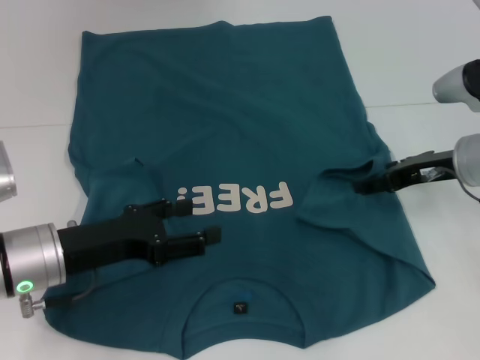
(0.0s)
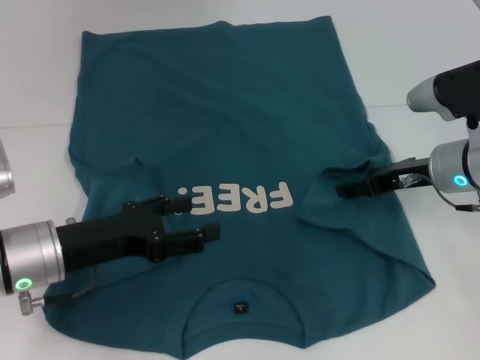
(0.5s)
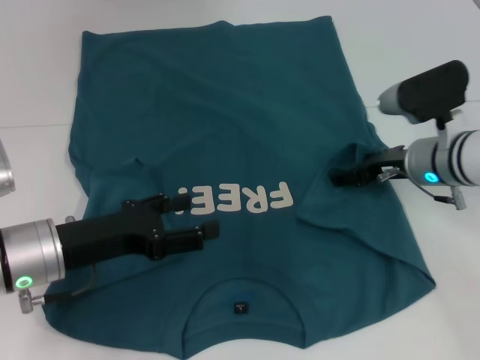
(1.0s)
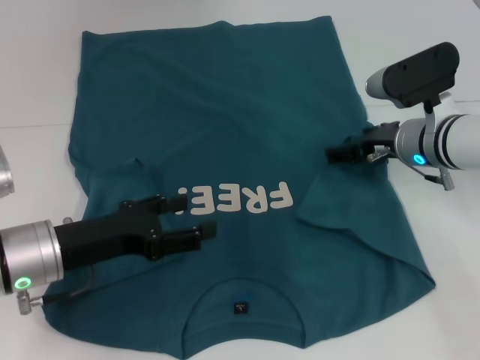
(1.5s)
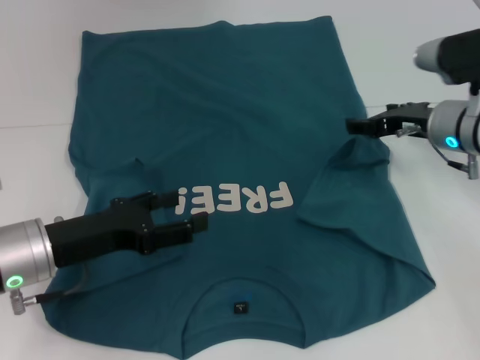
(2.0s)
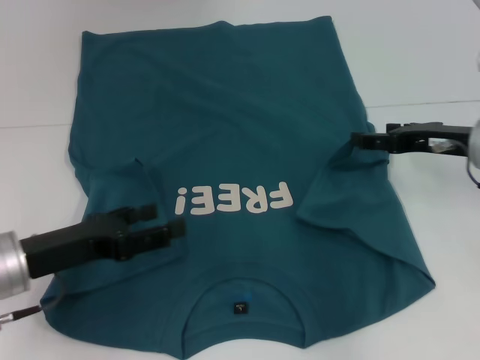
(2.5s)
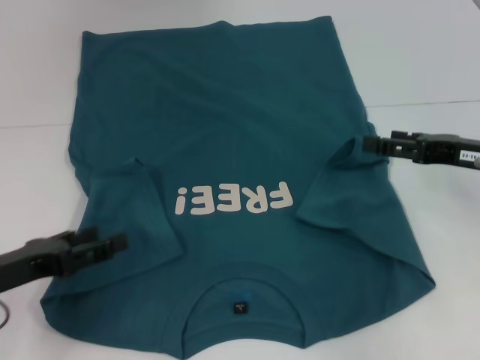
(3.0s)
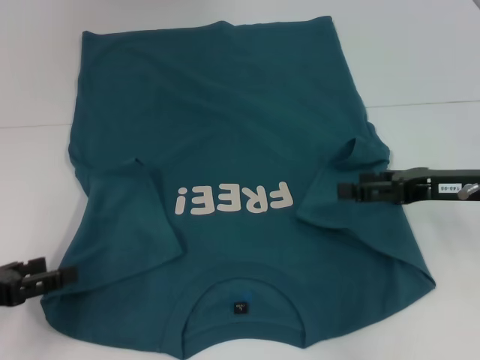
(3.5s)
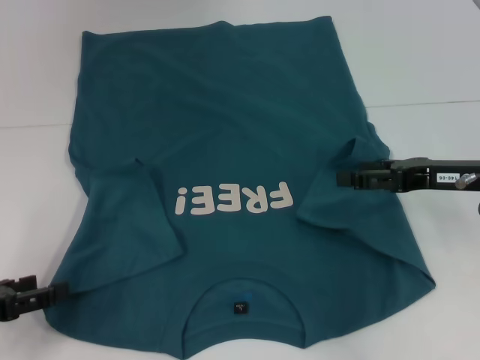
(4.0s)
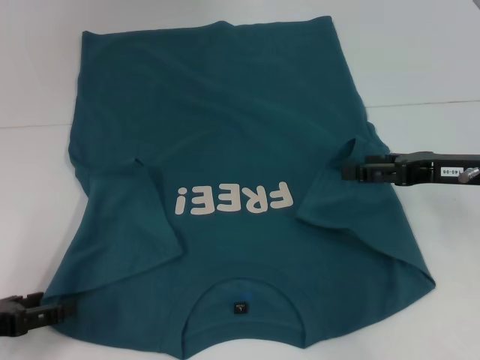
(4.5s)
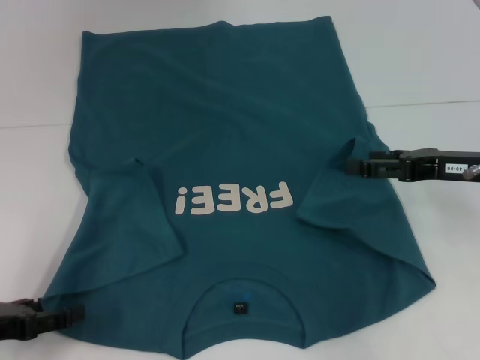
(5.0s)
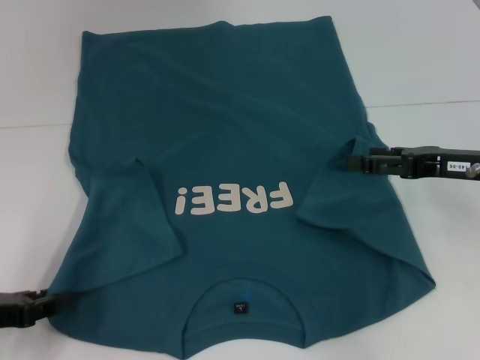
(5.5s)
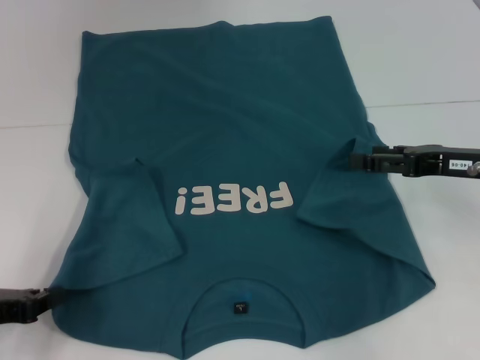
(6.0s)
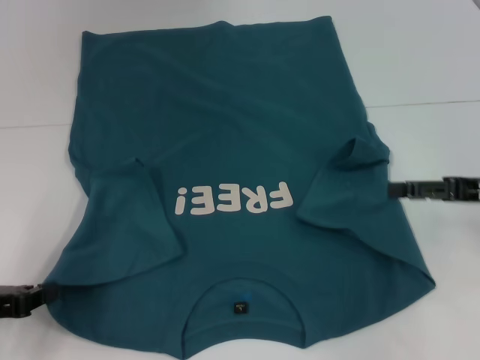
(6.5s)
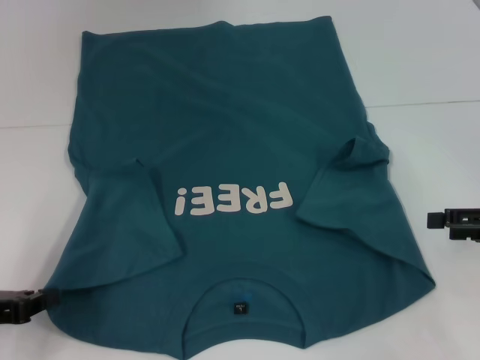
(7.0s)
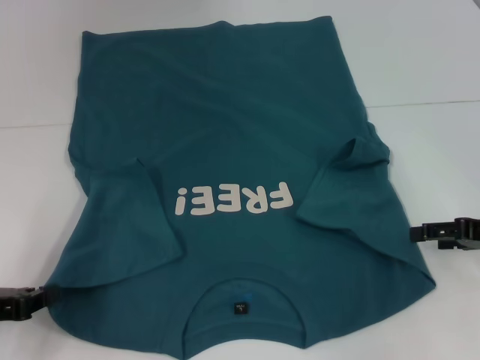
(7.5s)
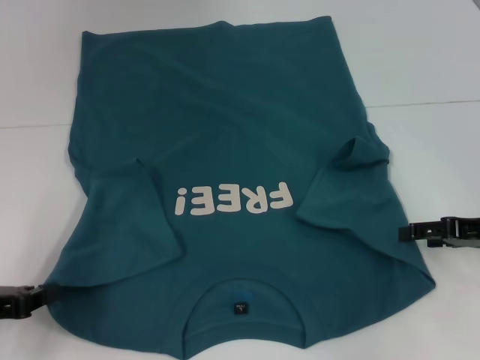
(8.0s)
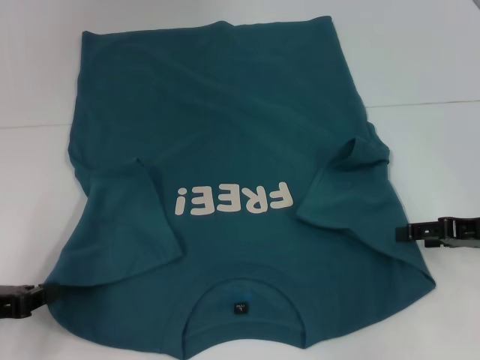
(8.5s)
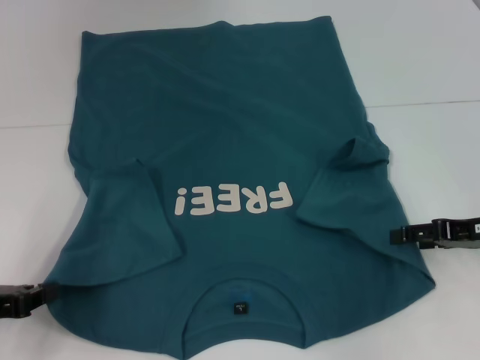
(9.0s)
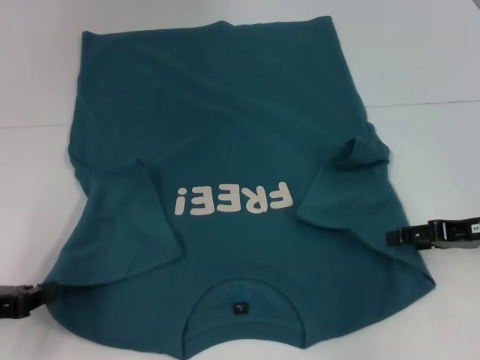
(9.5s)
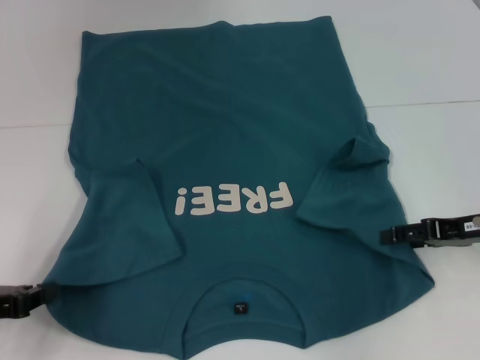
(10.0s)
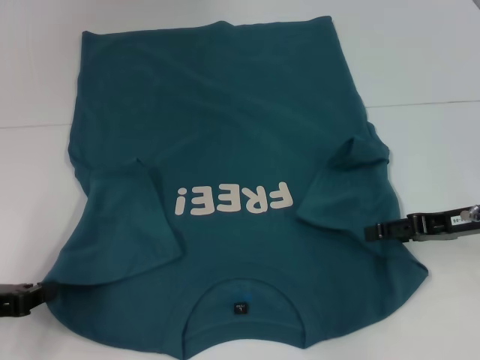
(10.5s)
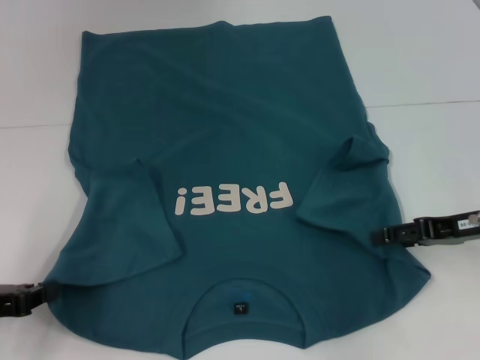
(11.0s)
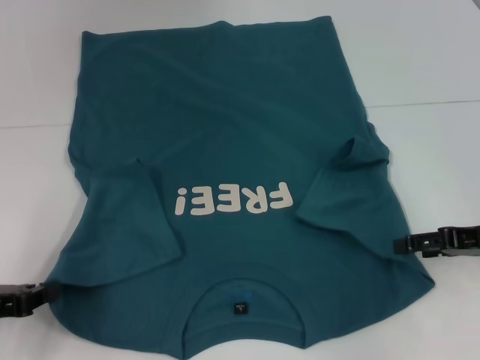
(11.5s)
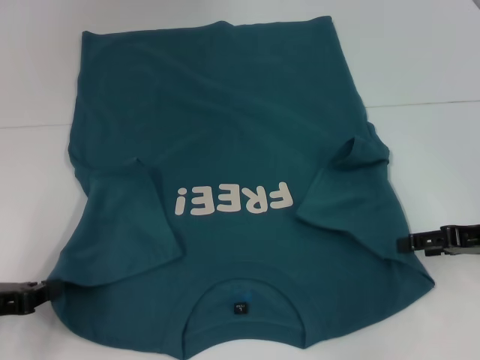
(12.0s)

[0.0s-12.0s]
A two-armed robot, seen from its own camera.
Step, 0.0s to 2.5s: Fold the bottom right sleeve to the right.
Step, 3.0s to 7.0s: Grab the bottom left corner with your left hand.
2.0s to 4.0s: The right gripper goes roughly 5 cm backward. Meanwhile the left gripper travels to the left and backward by roughly 15 cm.
4.0s to 6.0s: The left gripper closes up.
6.0s to 8.0s: The right gripper ends up about 5 cm from where it was.
8.0s to 12.0s: There are only small adjustments of the grippers.

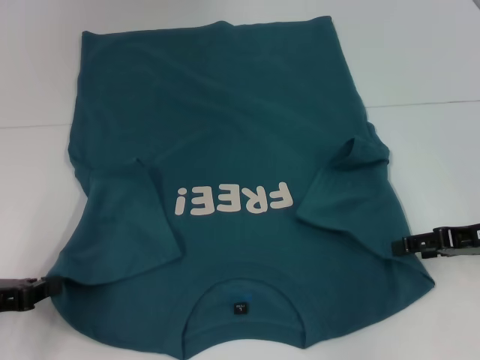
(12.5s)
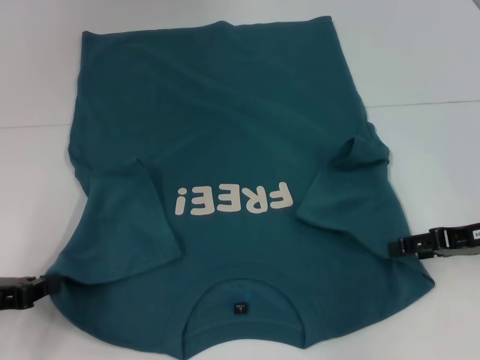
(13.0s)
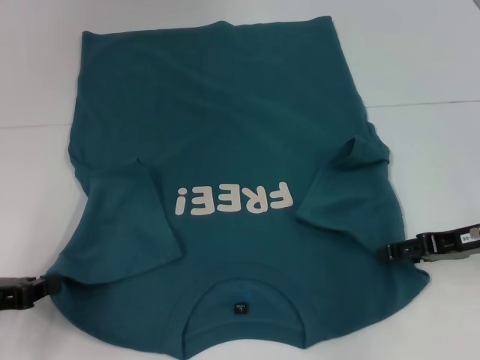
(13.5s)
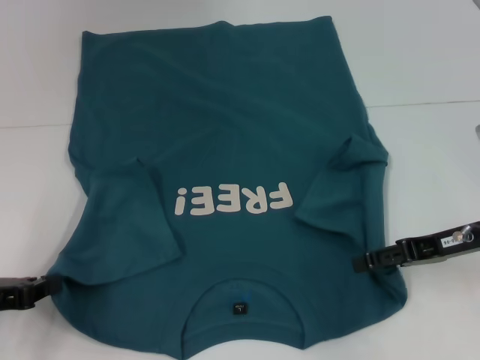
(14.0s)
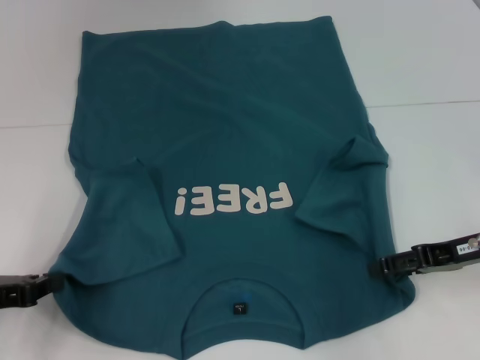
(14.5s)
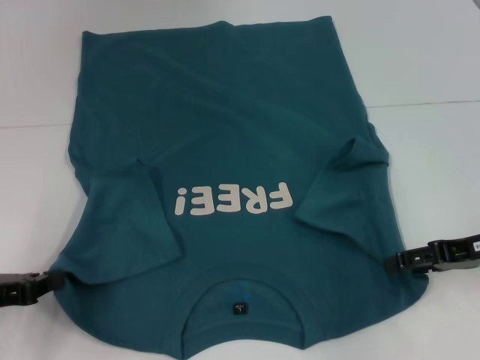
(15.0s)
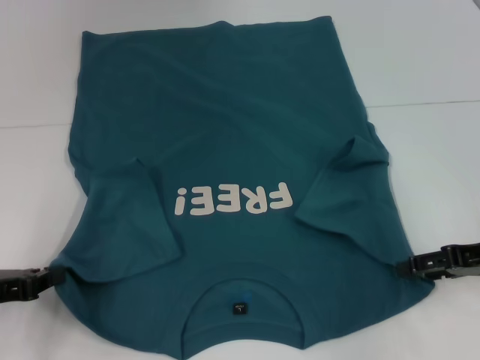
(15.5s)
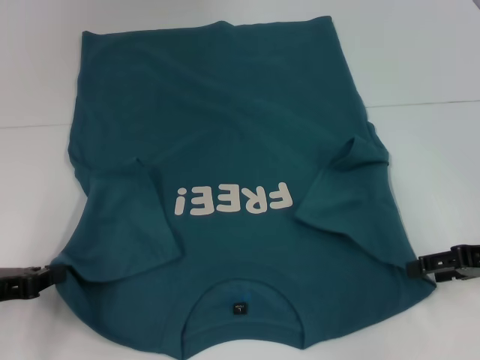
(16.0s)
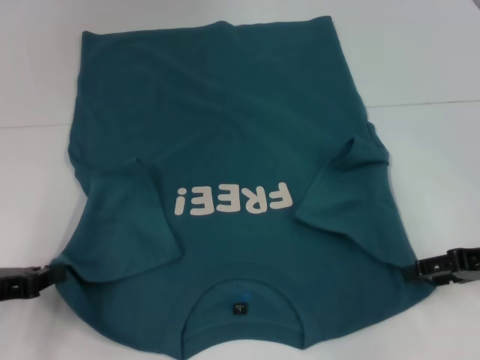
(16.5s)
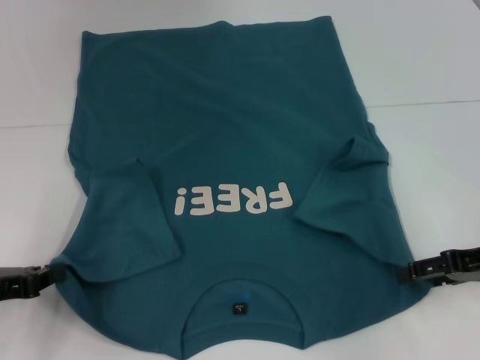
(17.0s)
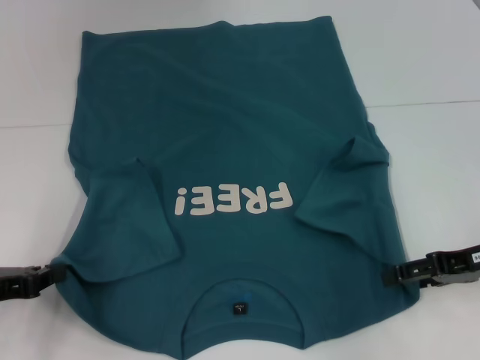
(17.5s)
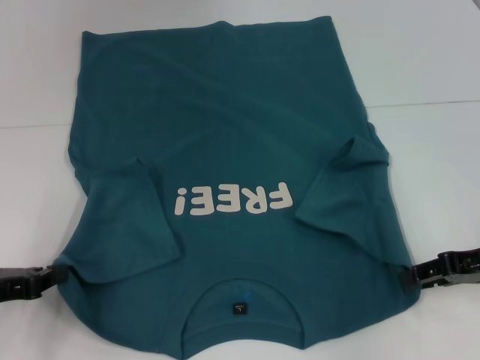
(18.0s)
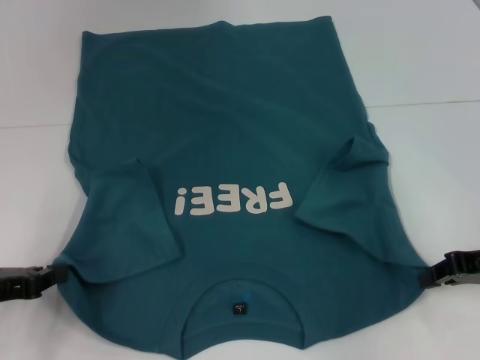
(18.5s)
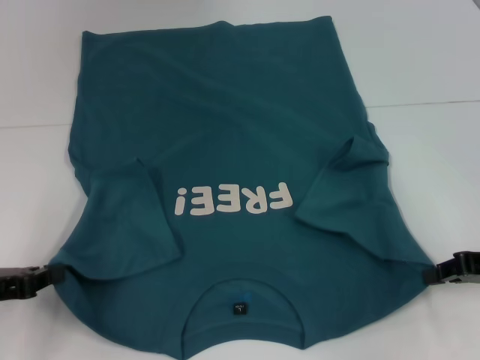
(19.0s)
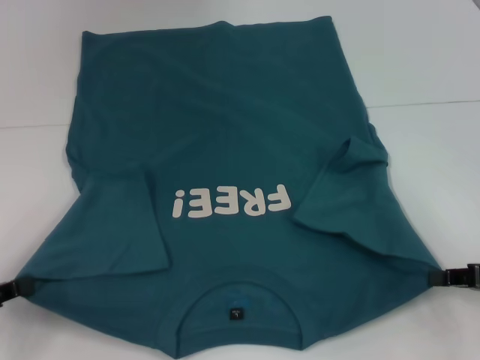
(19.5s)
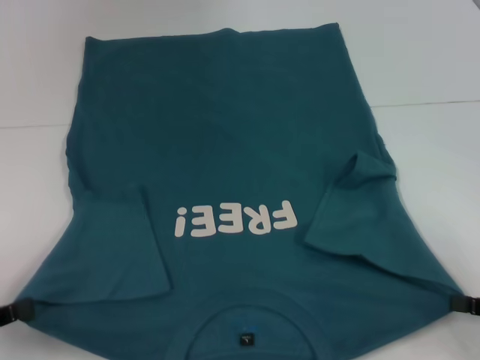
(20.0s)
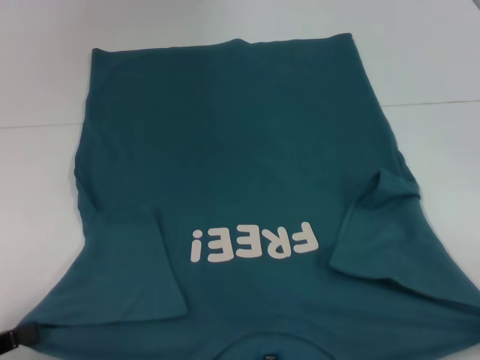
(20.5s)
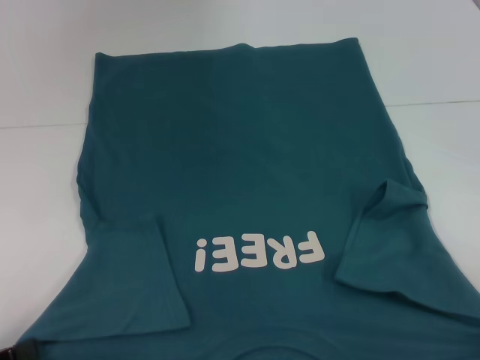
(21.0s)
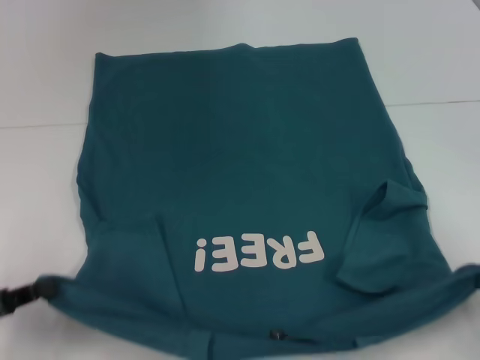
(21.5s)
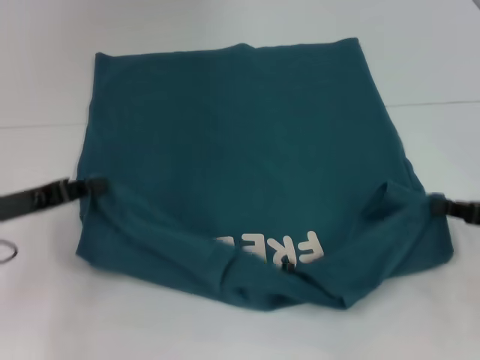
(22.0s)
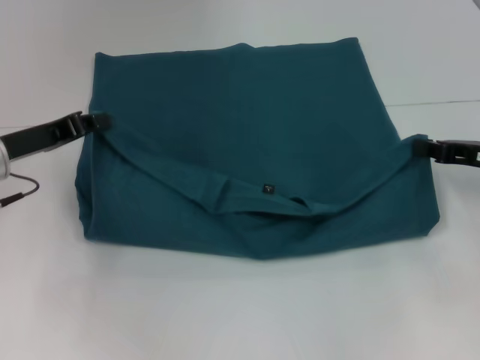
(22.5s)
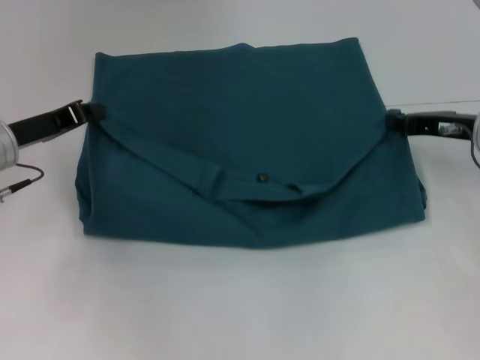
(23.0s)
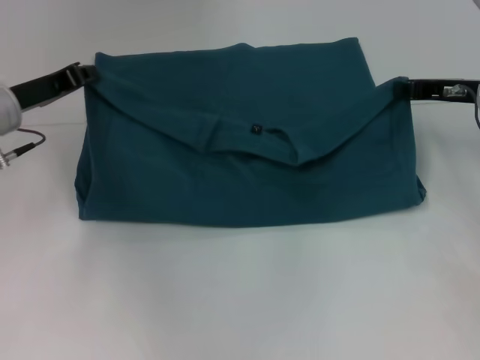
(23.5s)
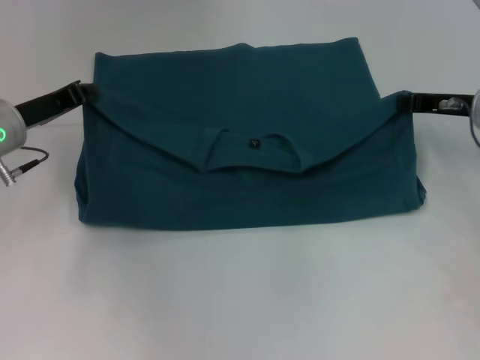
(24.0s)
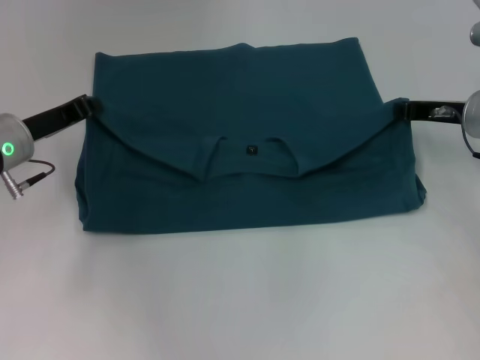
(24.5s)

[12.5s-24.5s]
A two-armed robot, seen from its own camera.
Step, 12.5s to 18.5s: Grab the bottom right corner with your right hand.
12.5s to 16.5s: The grippers stay close to where they were, moving slightly.
16.5s to 18.5s: The right gripper closes.
18.5s to 20.5s: The left gripper is displaced backward by some 10 cm, while the right gripper goes roughly 15 cm backward and to the right.
20.5s to 22.5s: The left gripper moves forward and to the right, roughly 20 cm, while the right gripper is displaced forward by about 20 cm.
22.5s to 24.5s: The right gripper moves forward, about 5 cm.

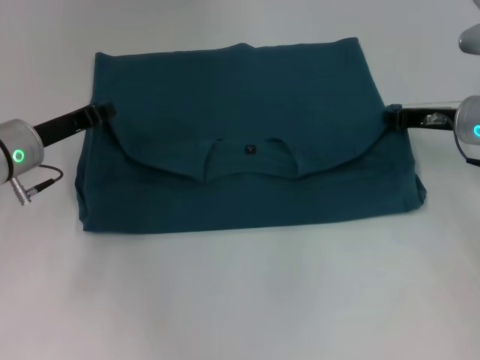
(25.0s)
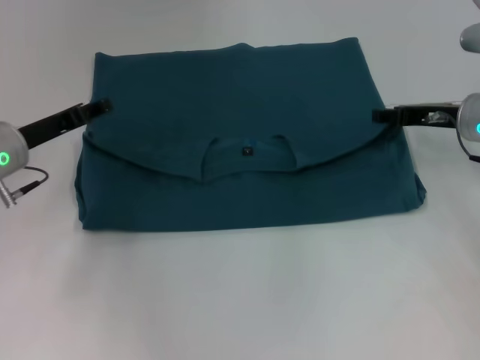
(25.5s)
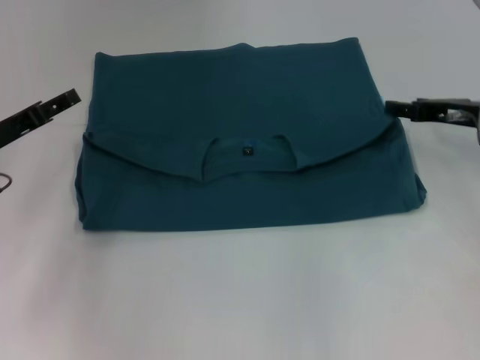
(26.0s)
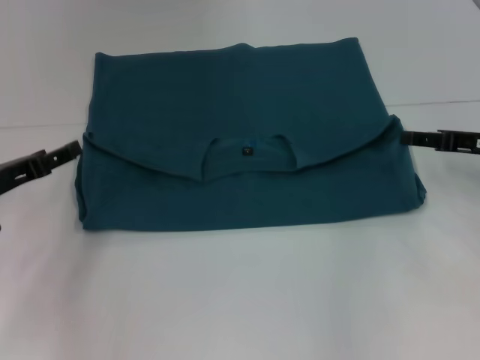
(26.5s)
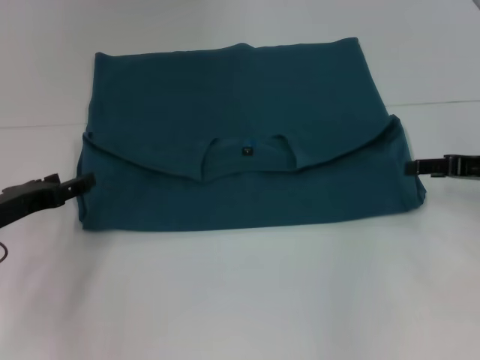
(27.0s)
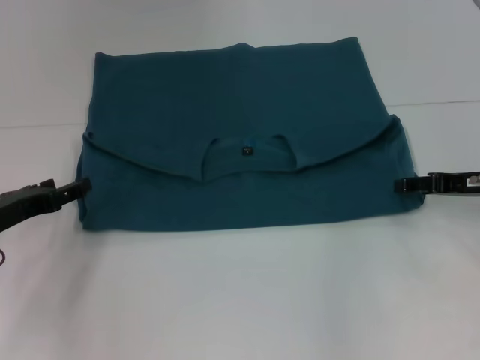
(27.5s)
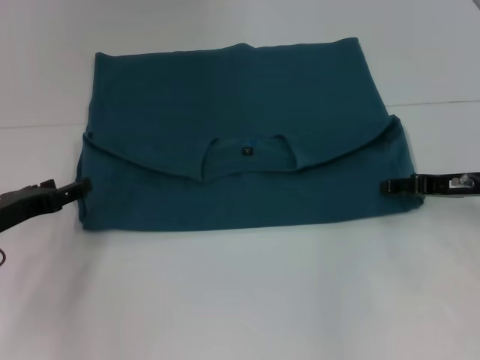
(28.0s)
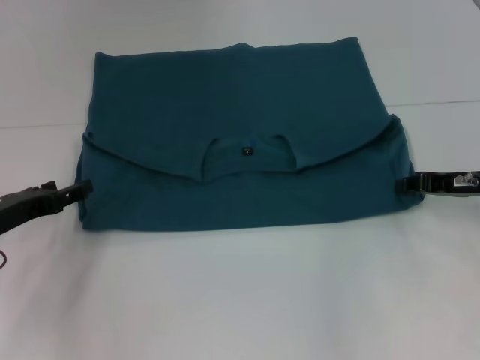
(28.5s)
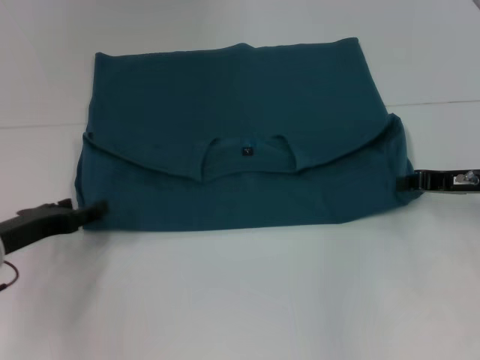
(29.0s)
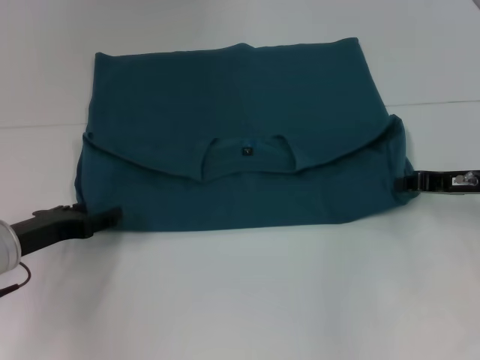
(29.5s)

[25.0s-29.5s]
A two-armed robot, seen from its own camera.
25.0s to 27.0s: The right gripper is displaced backward and to the right by approximately 10 cm, and opens; the left gripper heads backward and to the left, covering some 10 cm, and opens its fingers.
27.0s to 29.5s: The right gripper closes up.
